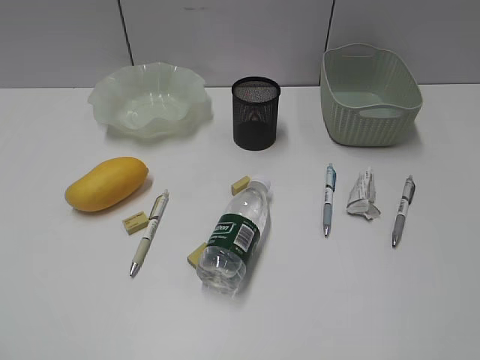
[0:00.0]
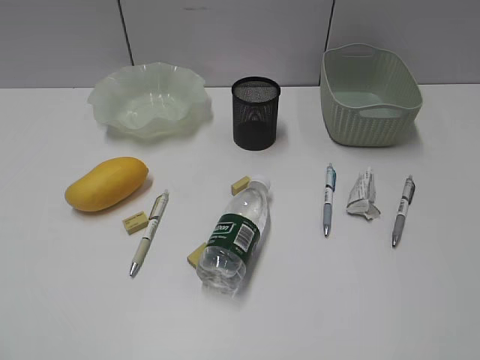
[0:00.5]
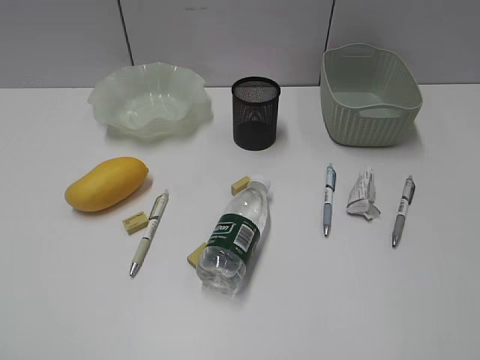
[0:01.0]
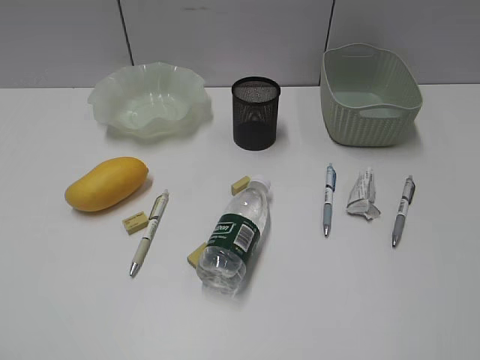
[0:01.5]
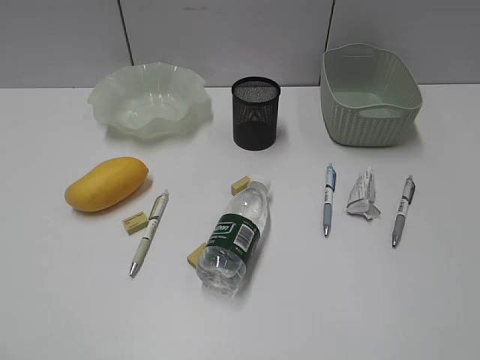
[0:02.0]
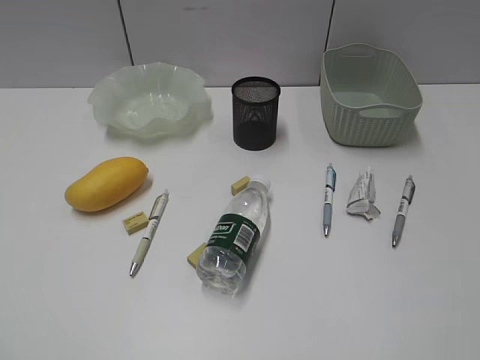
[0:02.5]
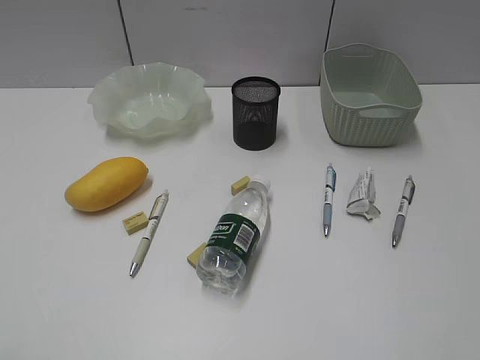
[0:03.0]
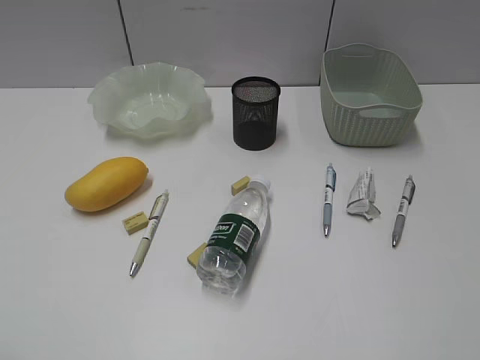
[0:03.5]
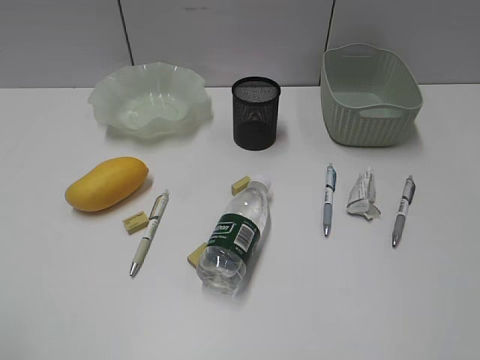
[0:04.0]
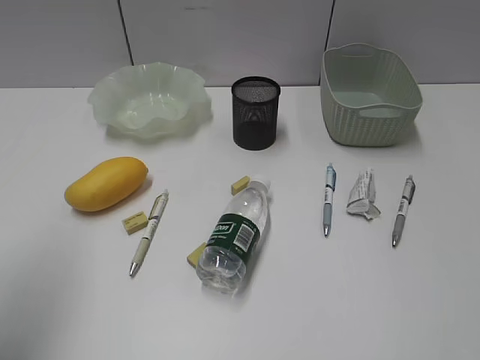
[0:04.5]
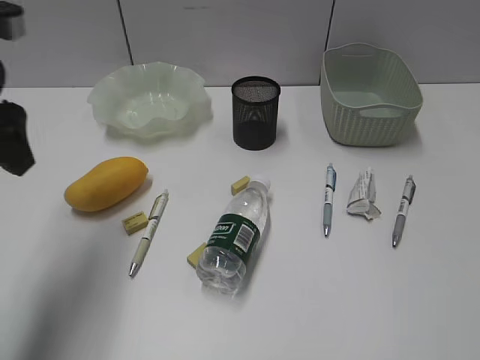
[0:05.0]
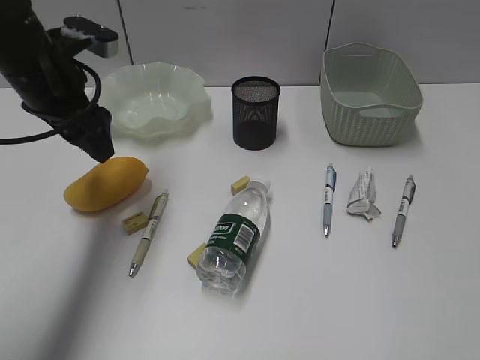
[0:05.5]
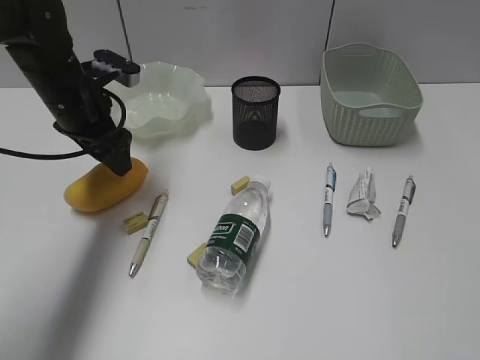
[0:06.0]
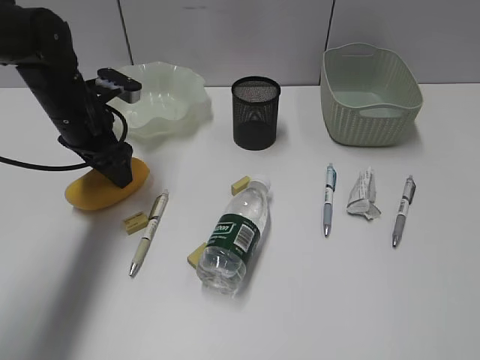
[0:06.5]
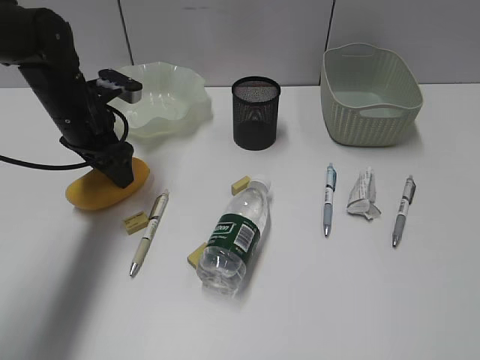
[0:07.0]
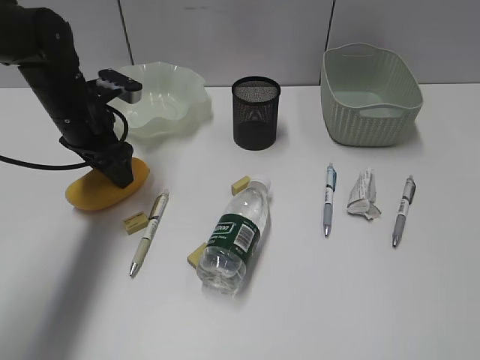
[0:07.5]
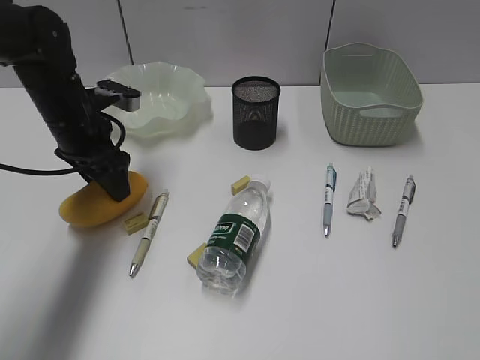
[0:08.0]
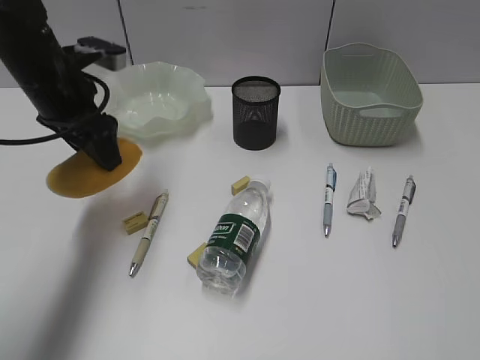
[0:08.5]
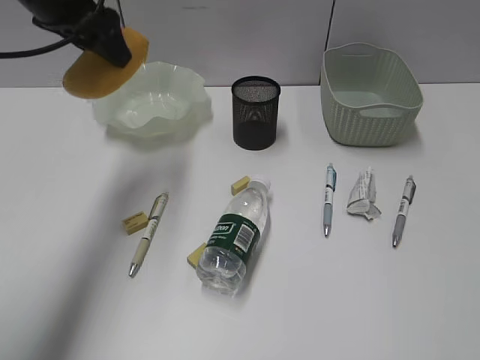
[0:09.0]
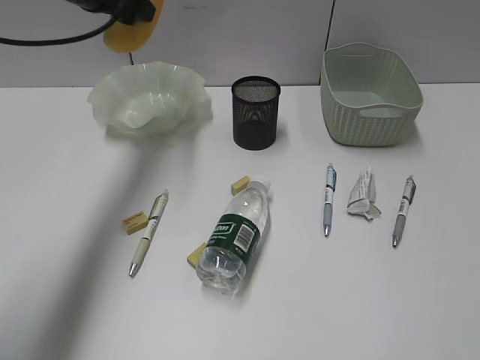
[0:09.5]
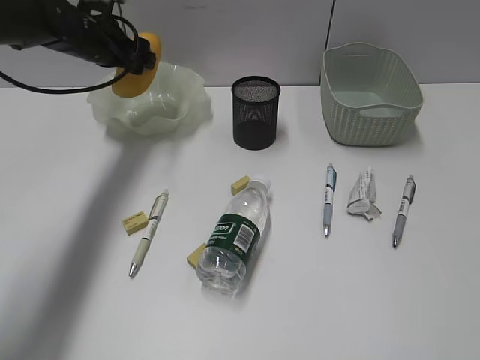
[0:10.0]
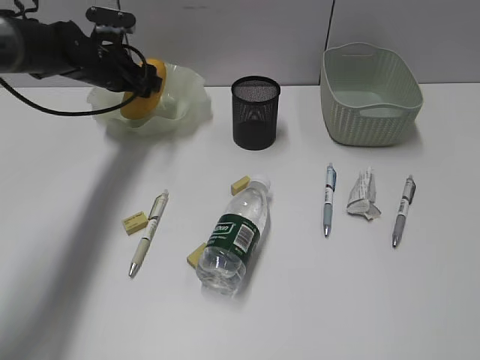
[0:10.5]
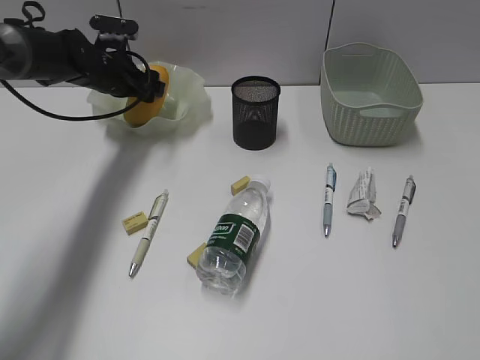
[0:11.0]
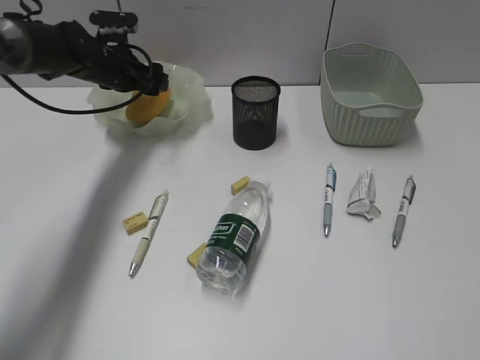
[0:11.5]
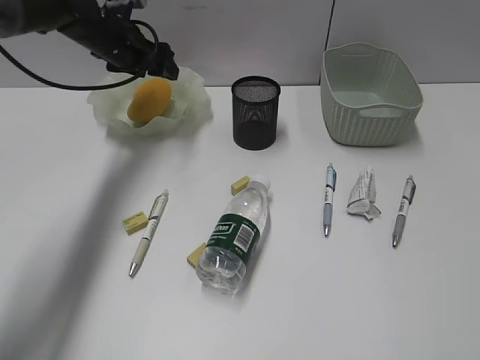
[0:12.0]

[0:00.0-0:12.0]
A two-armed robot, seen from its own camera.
Step, 0:05.0 to 0:07.5: Grasp the mango with left gripper.
Step, 0:08.0 to 0:11.5: Place the mango in the plate with left gripper.
0:04.0 to 0:06.0: The left gripper travels forward by roughly 35 cm.
0:06.0 to 0:08.0: The grippers make only small movements.
0:08.0 to 0:10.0: The left gripper is displaced forward by some 10 cm, and goes upward and returns, approximately 15 cm each way.

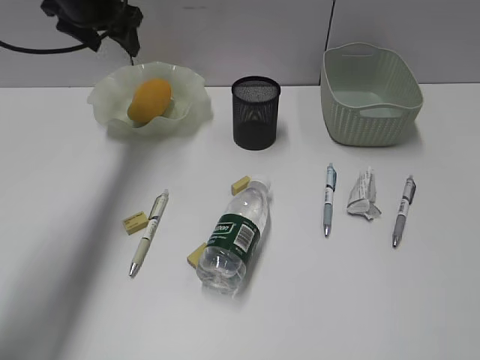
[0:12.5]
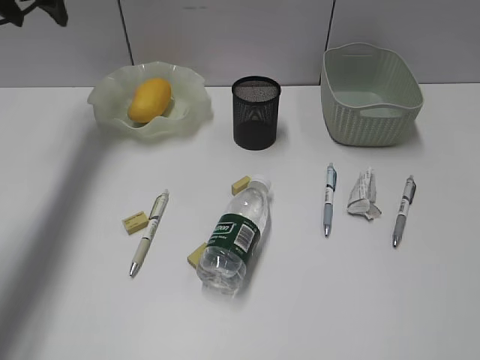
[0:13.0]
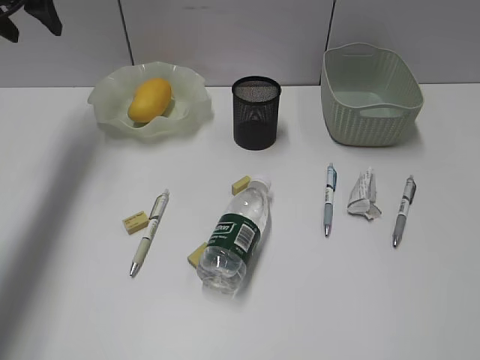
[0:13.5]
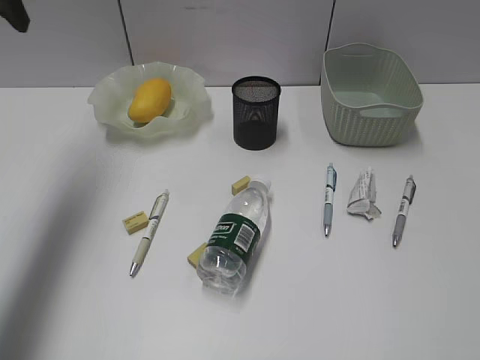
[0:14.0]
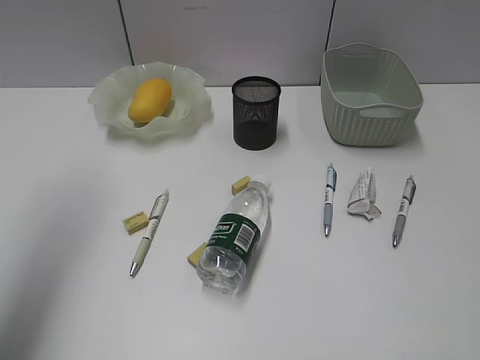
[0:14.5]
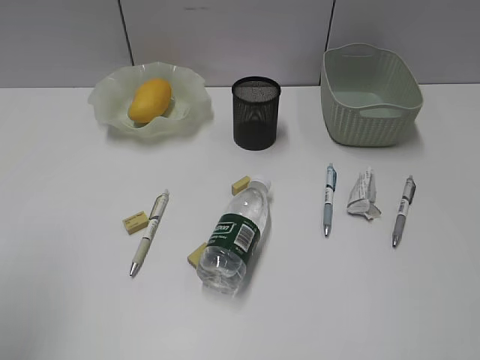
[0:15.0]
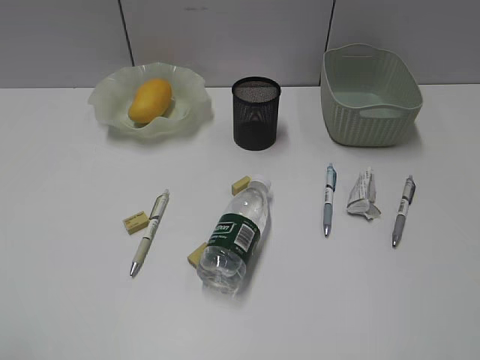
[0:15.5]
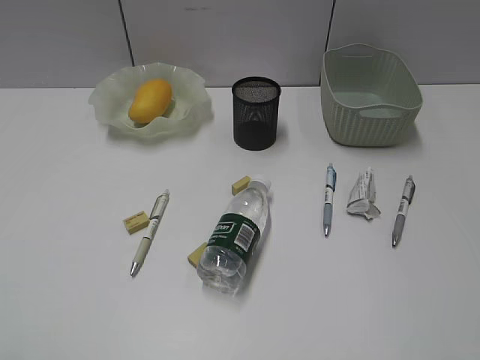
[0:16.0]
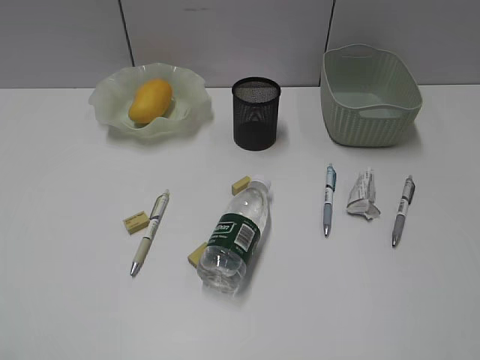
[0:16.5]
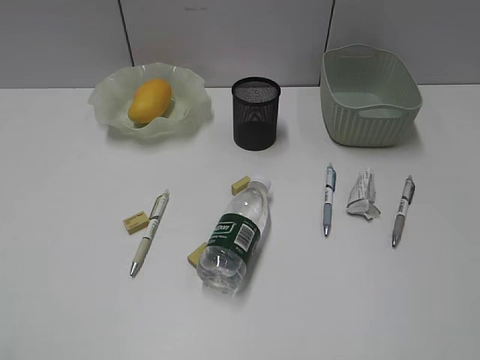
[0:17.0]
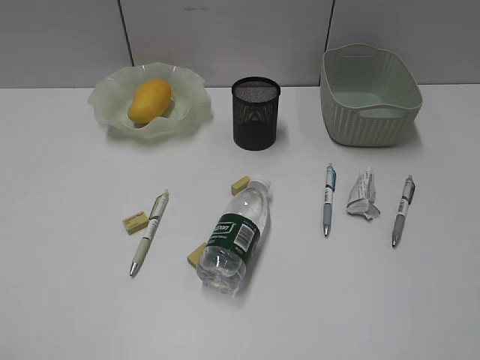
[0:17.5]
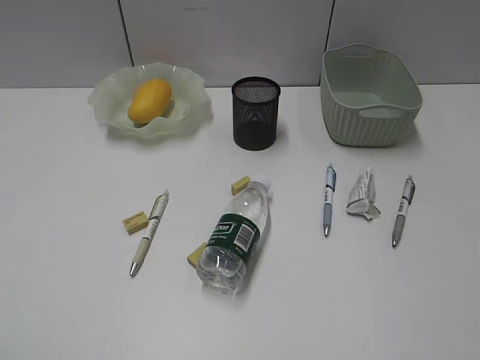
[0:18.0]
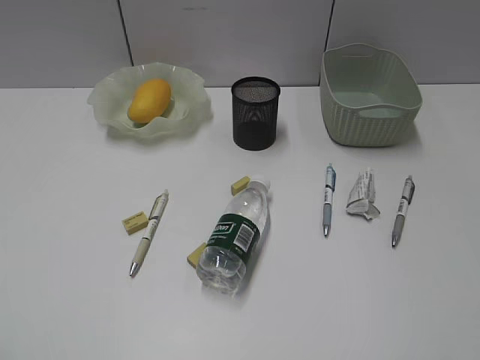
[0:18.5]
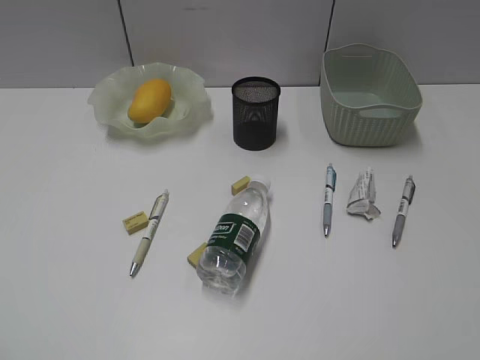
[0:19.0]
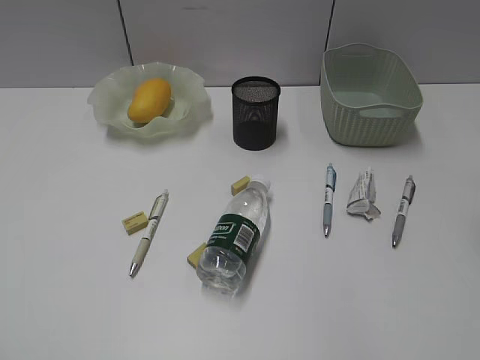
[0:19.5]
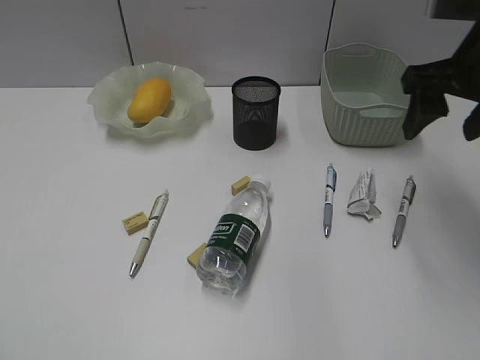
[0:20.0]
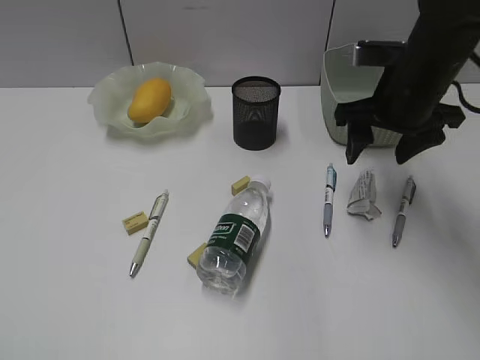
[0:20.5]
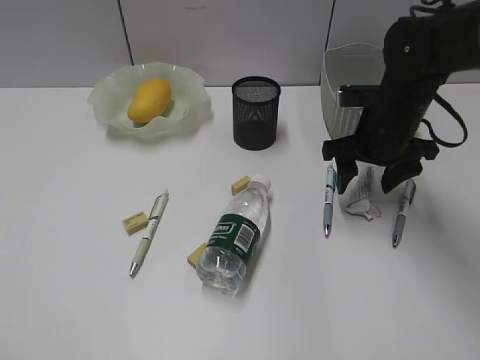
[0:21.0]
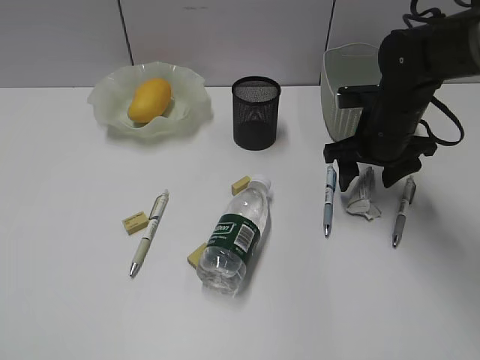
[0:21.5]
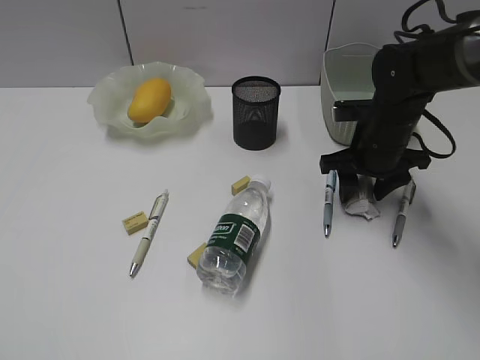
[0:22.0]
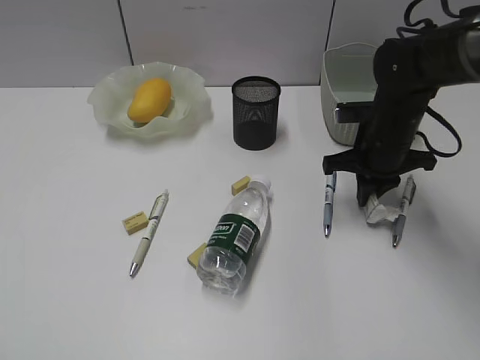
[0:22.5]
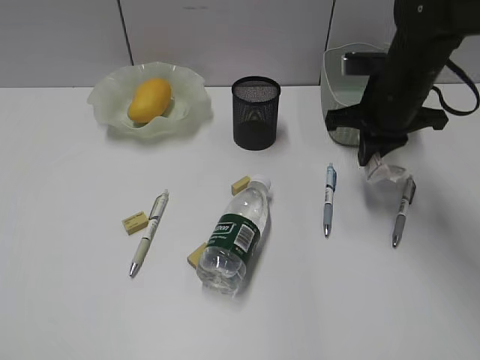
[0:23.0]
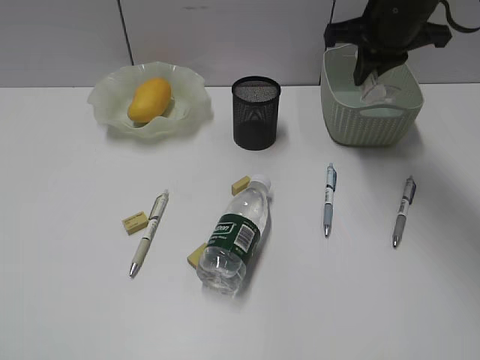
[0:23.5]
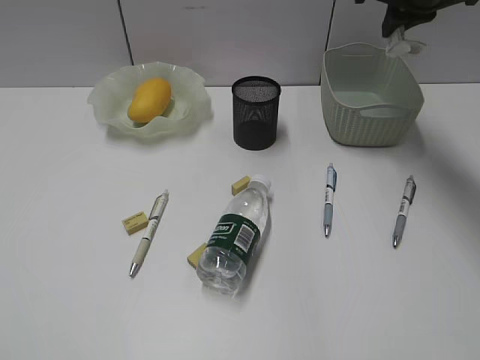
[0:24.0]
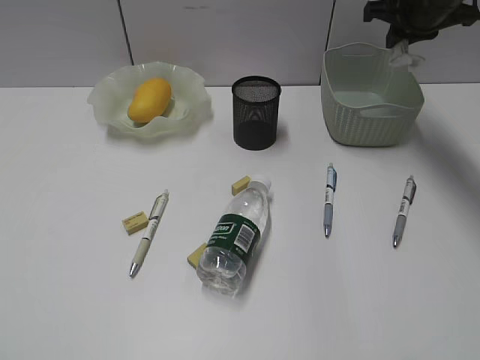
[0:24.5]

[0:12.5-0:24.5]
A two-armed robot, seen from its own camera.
Step, 0:12.5 to 0:22.0: Grasp the waste paper with right gripper.
0:12.5 to 0:14.5: The left gripper shifts some 30 cm backward, upward and to the left.
0:14.5 to 0:16.5: The left gripper shifts about 30 cm backward and downward.
0:16.5 to 0:18.5: Both grippers stay put.
0:18.5 to 0:20.5: The right gripper moves forward, approximately 35 cm.
0:20.5 to 0:22.5: The right gripper travels downward by about 10 cm, and closes.
0:22.5 to 0:24.5: The right gripper travels upward and forward by approximately 15 cm.

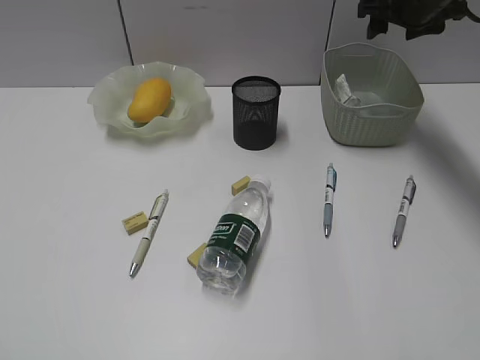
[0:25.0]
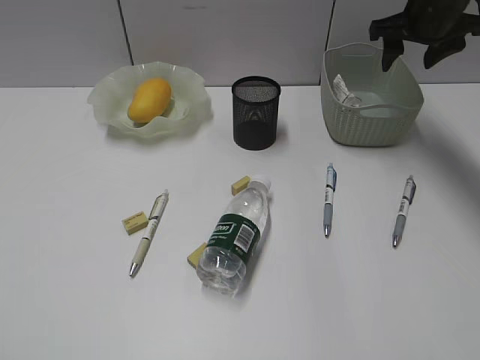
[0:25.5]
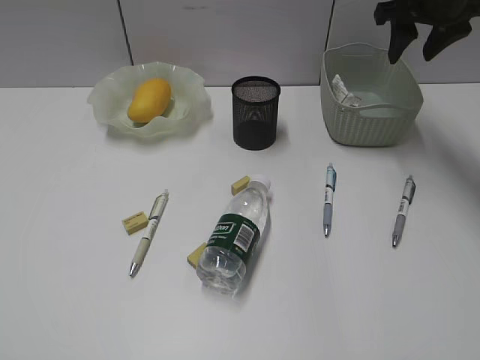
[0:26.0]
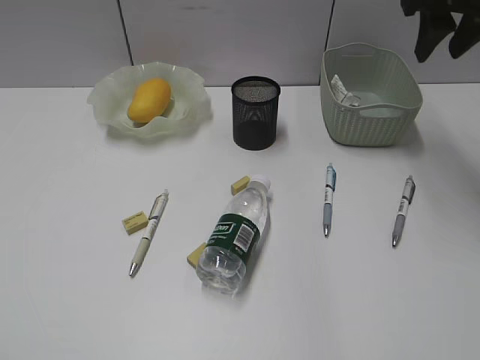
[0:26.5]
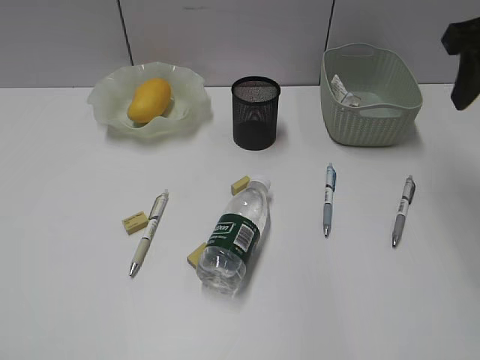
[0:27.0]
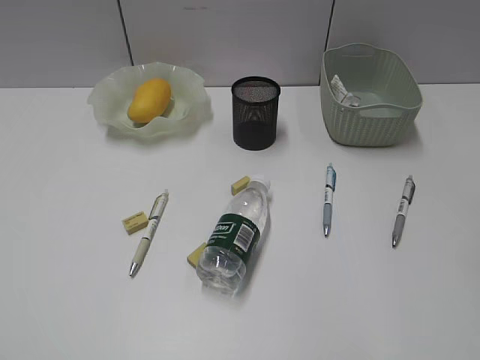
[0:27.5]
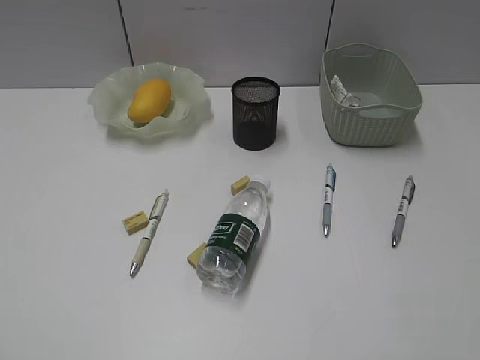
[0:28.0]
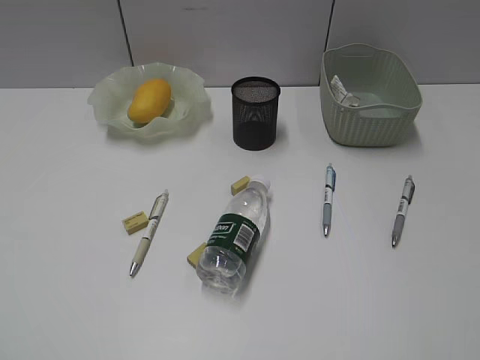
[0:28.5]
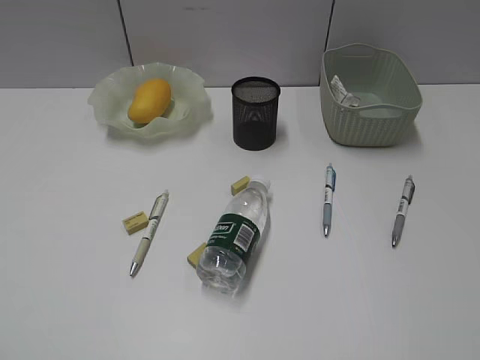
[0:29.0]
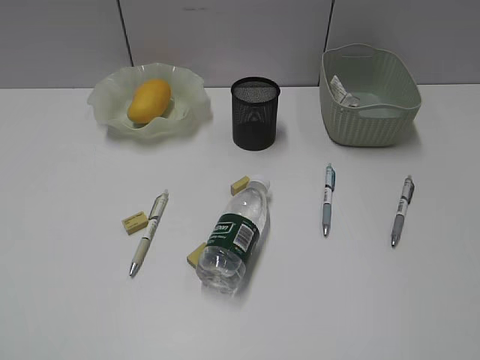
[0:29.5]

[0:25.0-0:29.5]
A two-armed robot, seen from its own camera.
0:25.0 to 0:27.0: The right gripper travels backward by approximately 20 cm.
0:27.0 to 0:29.5: The right gripper moves backward, about 35 cm.
